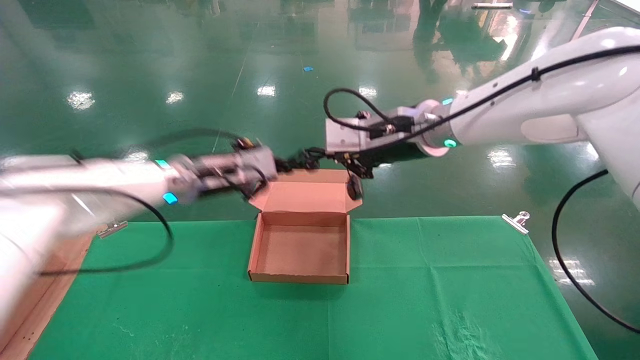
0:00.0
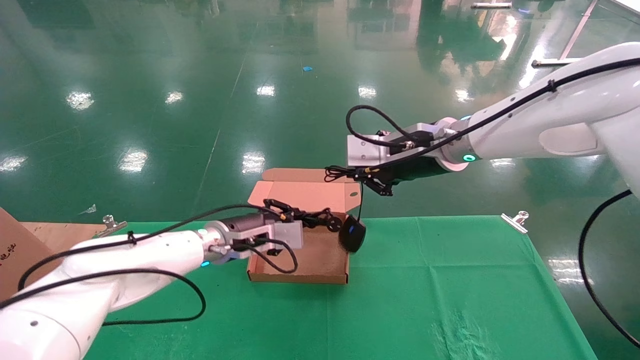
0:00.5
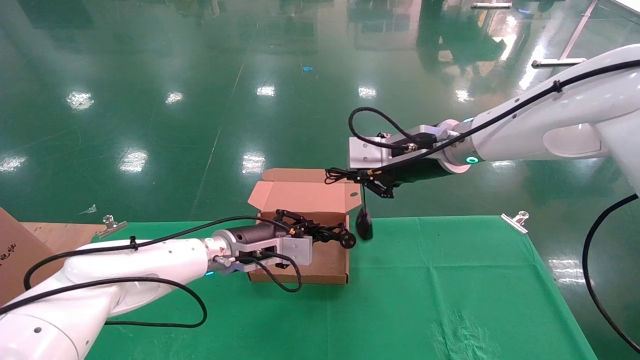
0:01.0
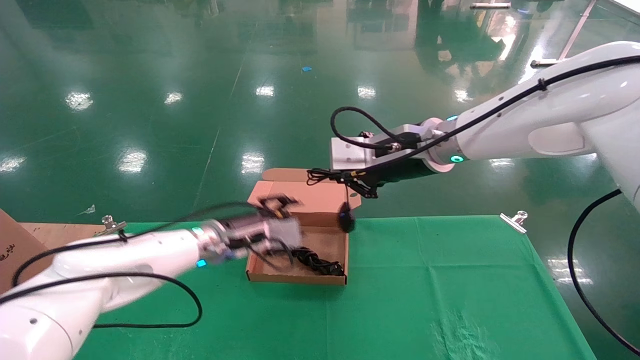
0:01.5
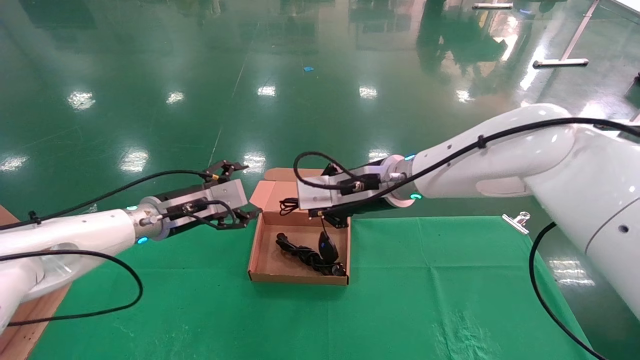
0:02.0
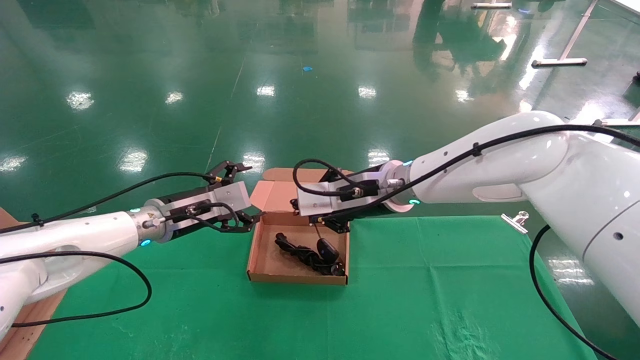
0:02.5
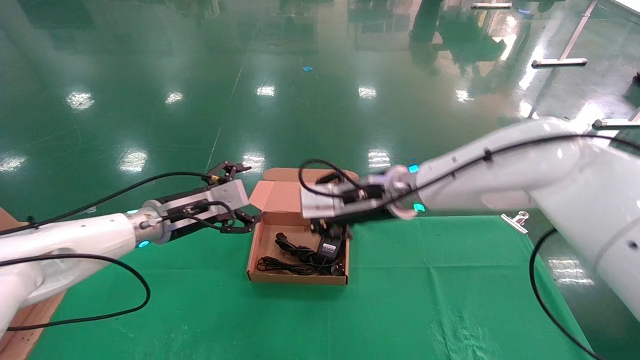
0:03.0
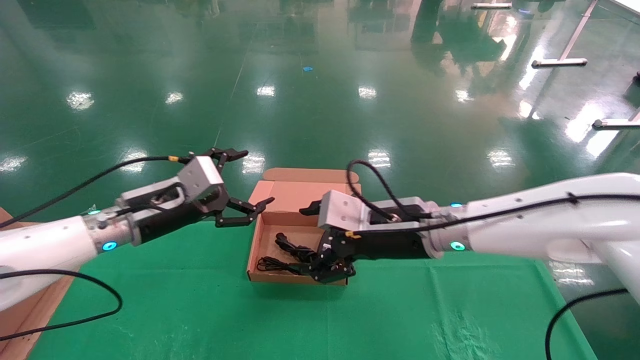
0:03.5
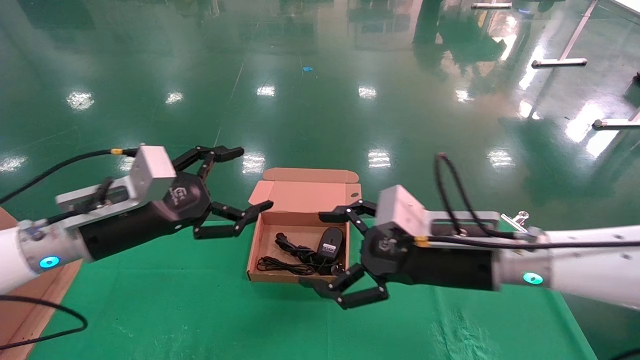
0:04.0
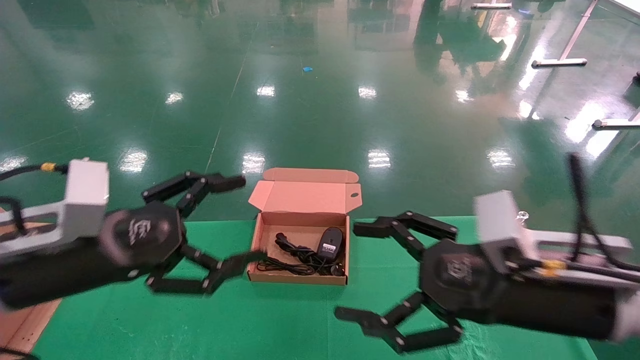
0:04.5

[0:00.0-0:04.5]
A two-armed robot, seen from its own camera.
Step, 0:00.0 to 0:04.0: Place the mouse and power cord into the box.
0:00.0 to 0:02.0: The two grippers go roughly 5 cm downward. The left gripper opens.
0:02.0 to 0:04.5: The right gripper heads backward and to the right, covering about 25 cm, and opens up; the left gripper travels backward by some 20 cm.

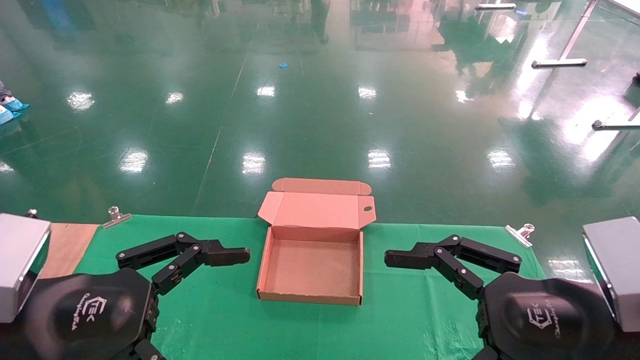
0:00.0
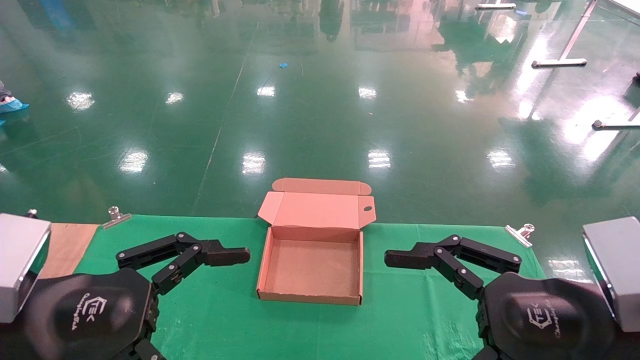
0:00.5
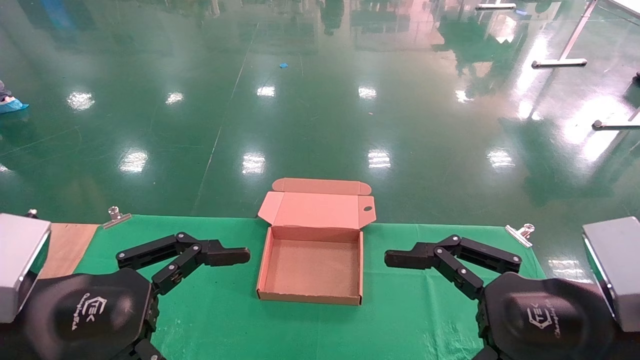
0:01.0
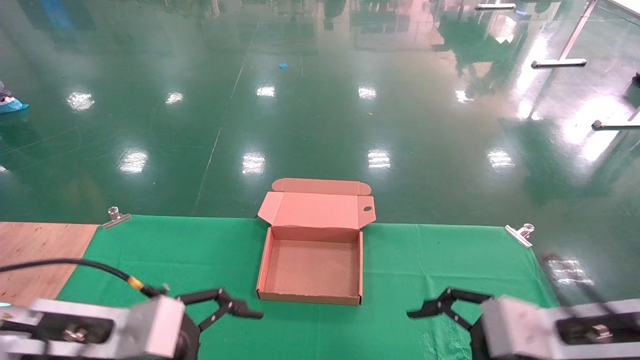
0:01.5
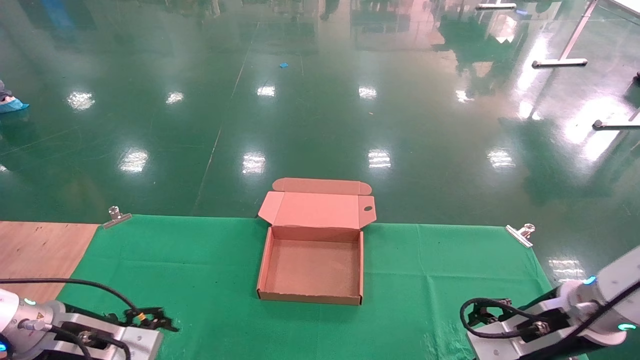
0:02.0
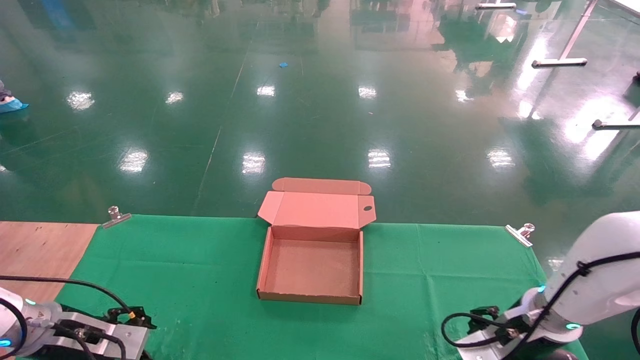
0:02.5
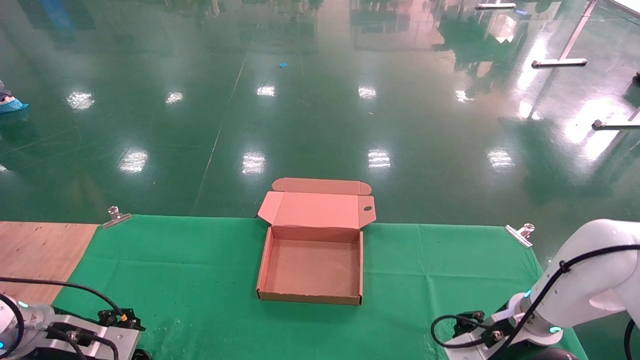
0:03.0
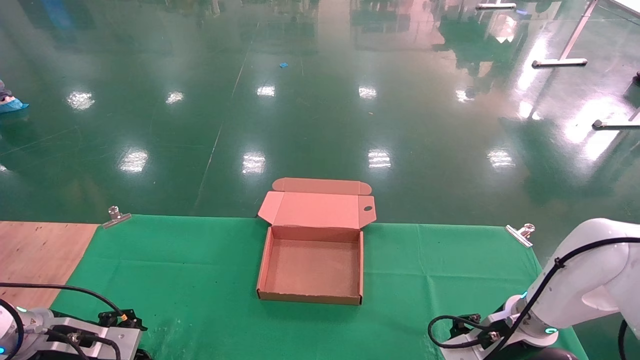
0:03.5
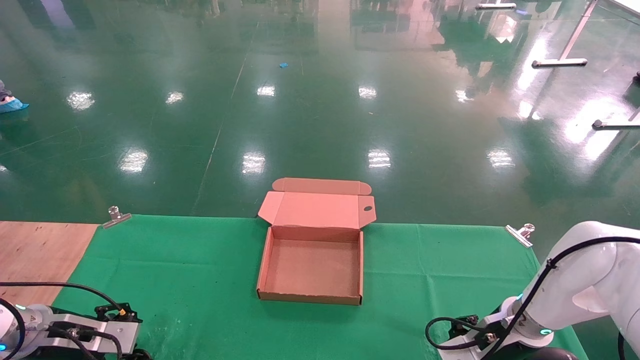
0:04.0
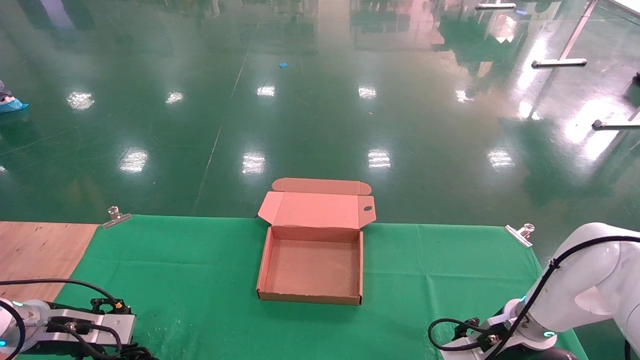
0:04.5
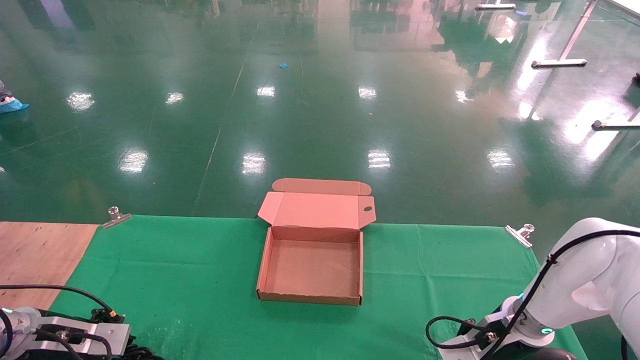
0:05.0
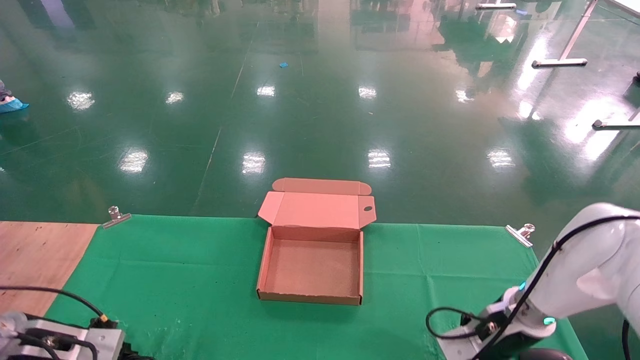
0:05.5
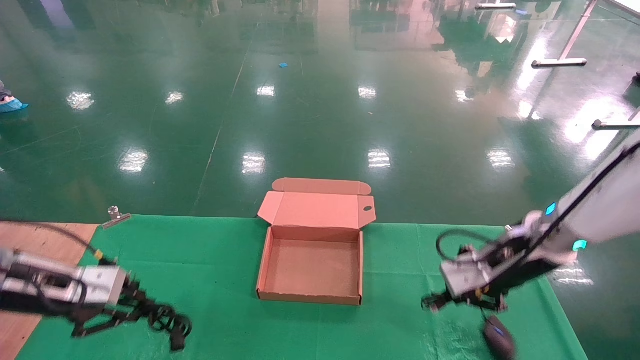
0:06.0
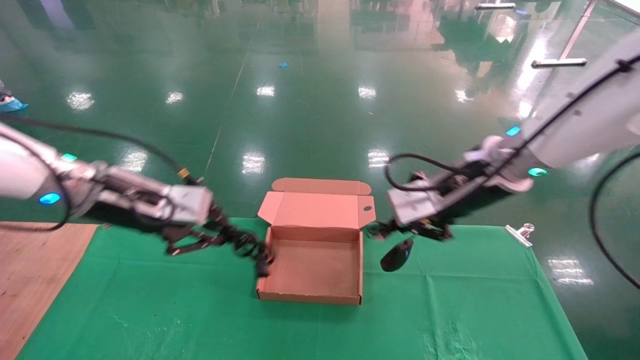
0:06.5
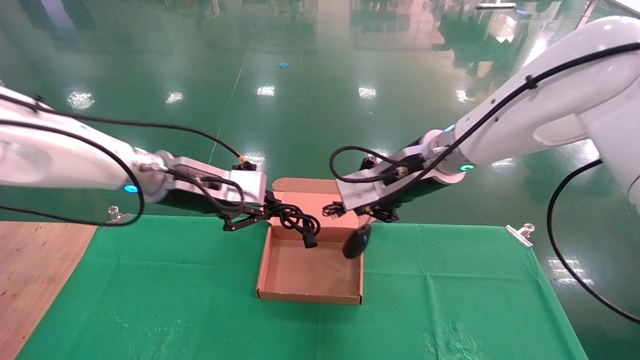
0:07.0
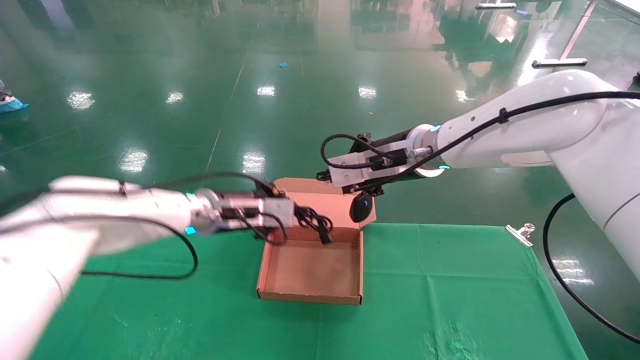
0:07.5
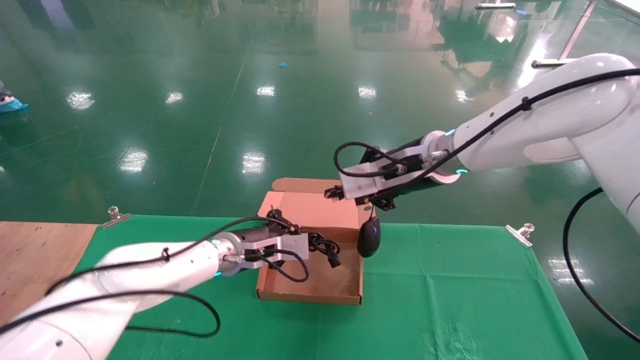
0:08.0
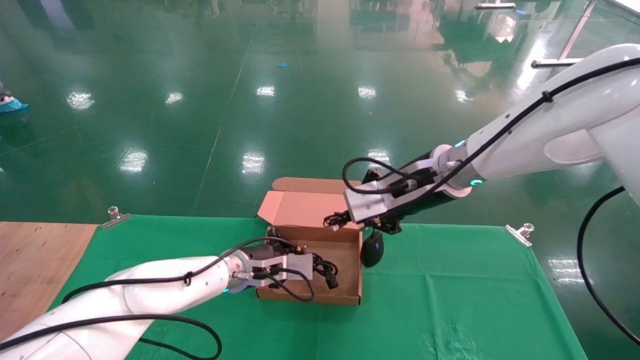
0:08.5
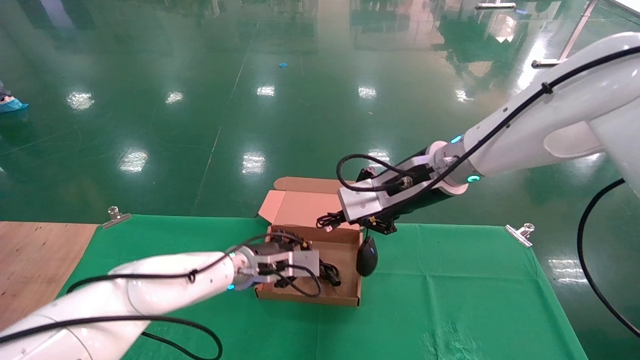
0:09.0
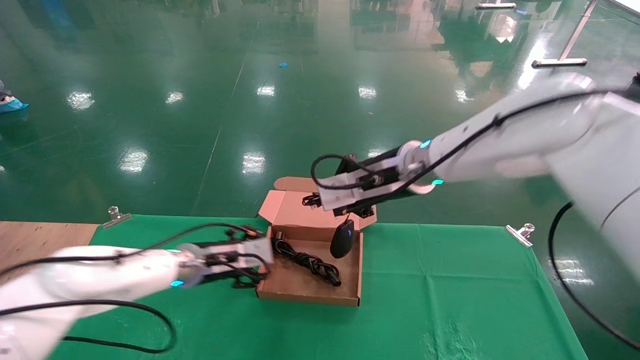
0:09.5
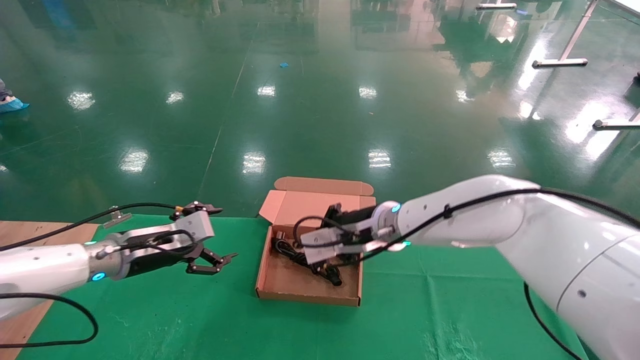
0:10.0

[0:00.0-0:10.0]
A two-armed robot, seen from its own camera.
Step, 0:02.0 to 0:06.0: Grab and lift both the mouse and power cord from the accessory packaging area at the same time.
0:00.0 to 0:02.0: The left gripper is displaced forward, downward and to the left by about 20 cm, while the right gripper shifts about 15 cm forward and downward.
0:02.0 to 0:04.0: The right gripper goes roughly 10 cm forward and downward; the left gripper is displaced to the left by roughly 10 cm.
0:04.0 to 0:06.0: The two grippers go approximately 15 cm upward. The right gripper closes its fingers. The left gripper closes up.
0:06.0 to 0:08.0: The right gripper moves to the left and upward, about 15 cm, while the left gripper goes about 30 cm to the right and forward.
0:08.0 to 0:10.0: The left gripper goes some 15 cm to the left, and opens its fingers. Meanwhile the right gripper shifts approximately 10 cm downward and to the left.

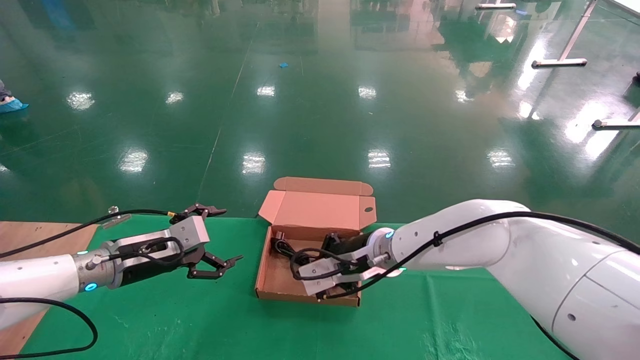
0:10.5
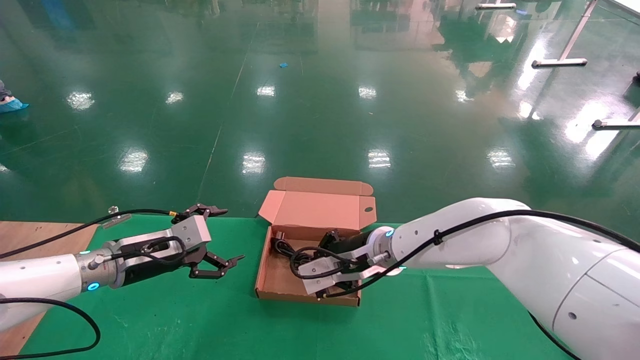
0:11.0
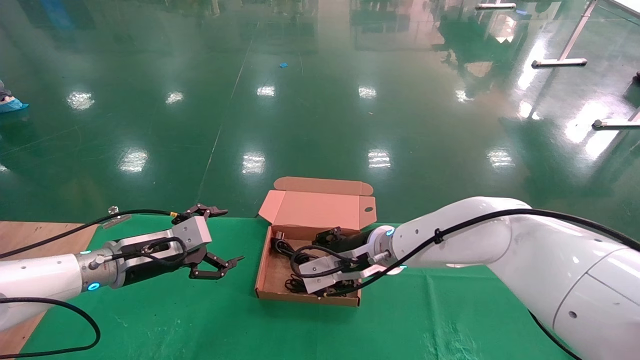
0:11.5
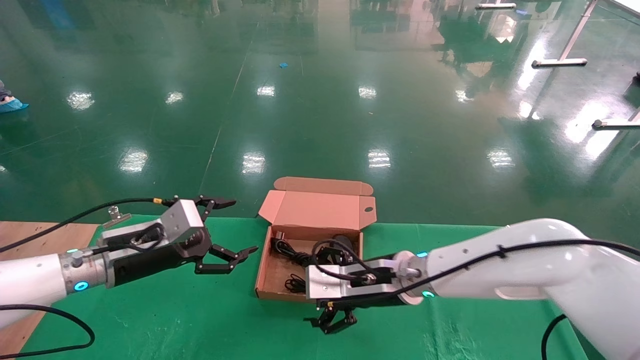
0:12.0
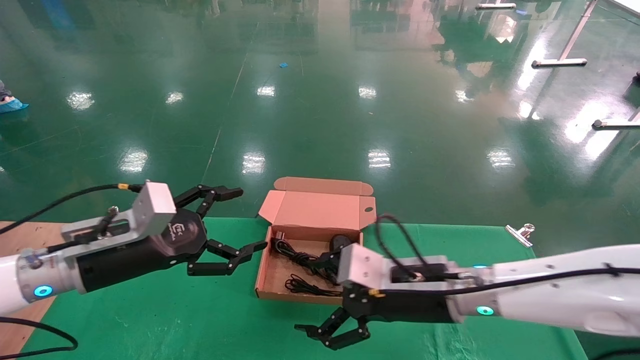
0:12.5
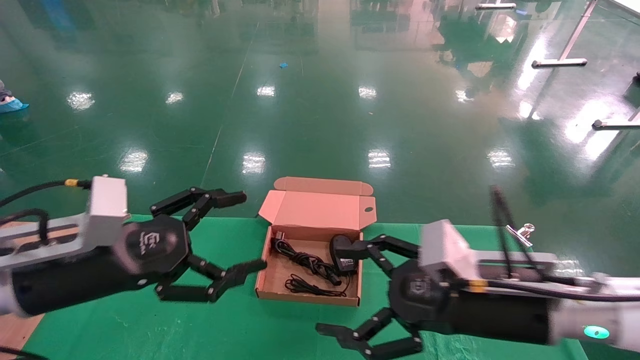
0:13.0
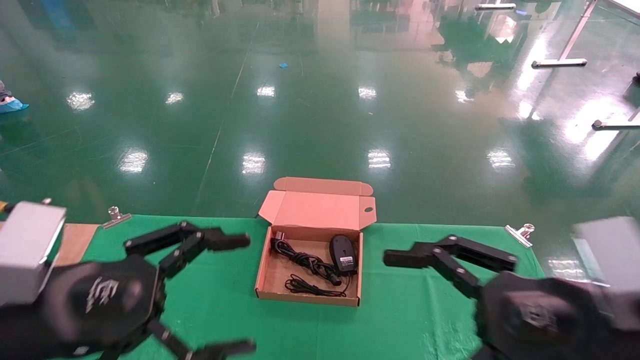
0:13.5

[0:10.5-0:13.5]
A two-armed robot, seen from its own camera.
0:10.5 to 0:12.0: The right gripper ends up roughly 5 cm from where it was, and opens up.
0:12.0 to 0:13.5: The right gripper travels backward and to the right by roughly 25 cm; the left gripper is displaced backward by approximately 20 cm.
